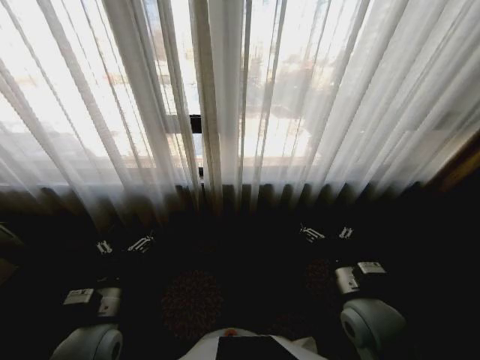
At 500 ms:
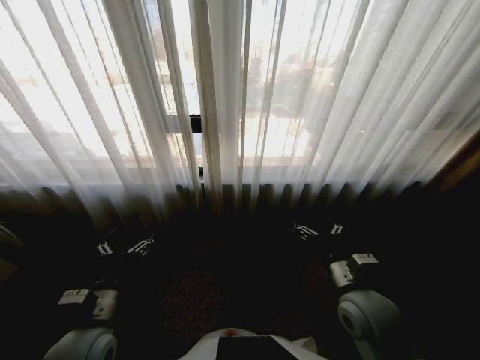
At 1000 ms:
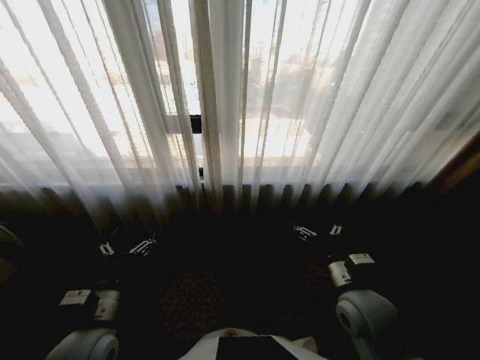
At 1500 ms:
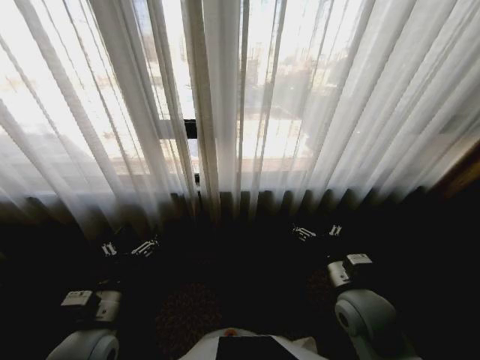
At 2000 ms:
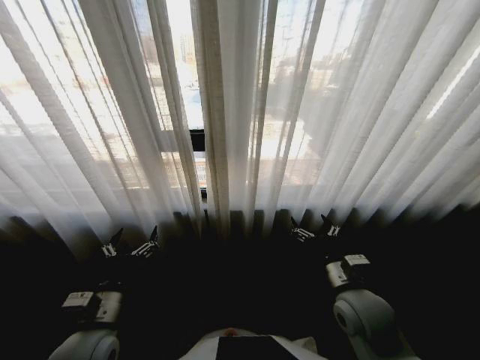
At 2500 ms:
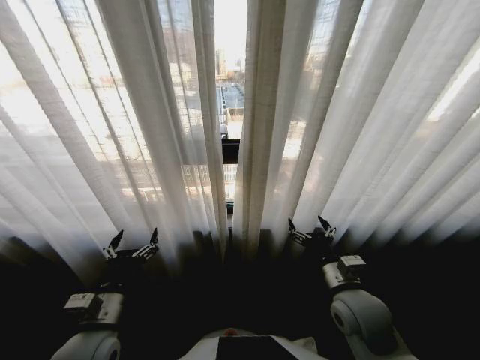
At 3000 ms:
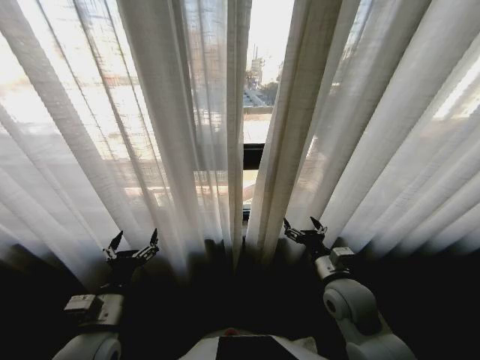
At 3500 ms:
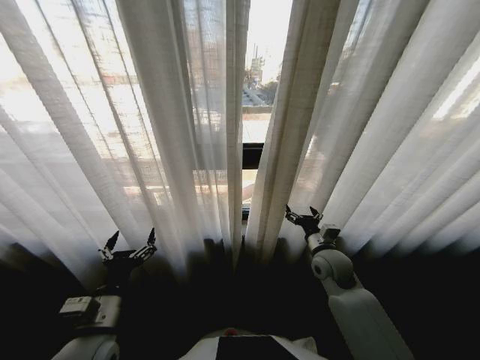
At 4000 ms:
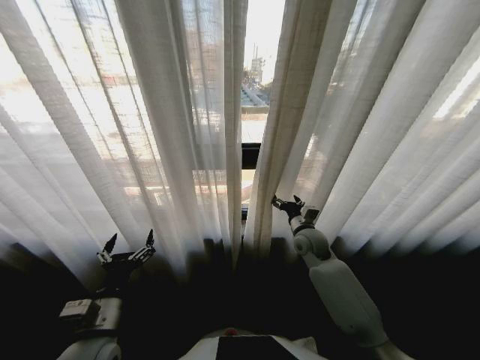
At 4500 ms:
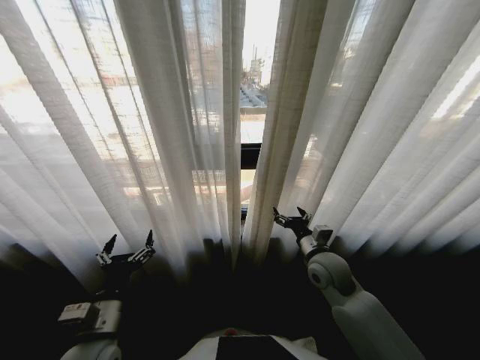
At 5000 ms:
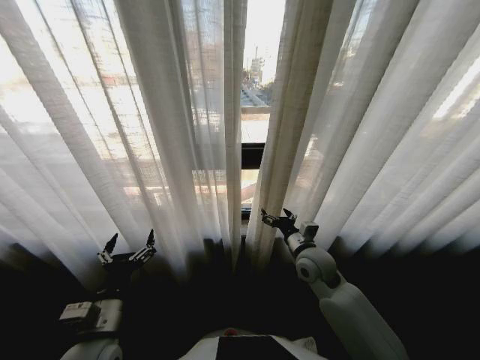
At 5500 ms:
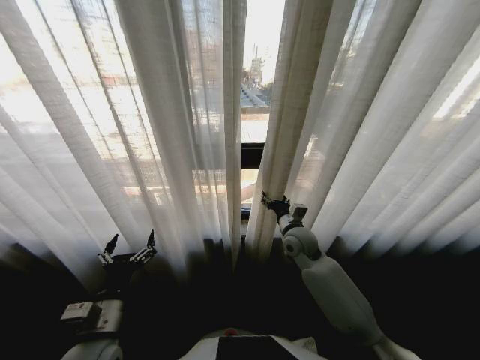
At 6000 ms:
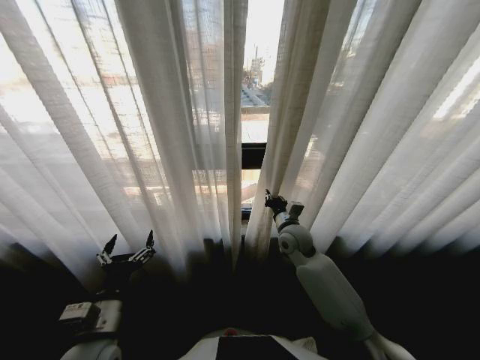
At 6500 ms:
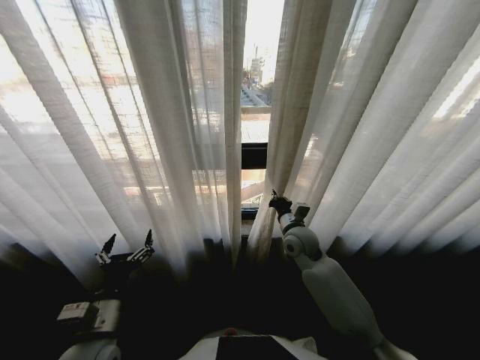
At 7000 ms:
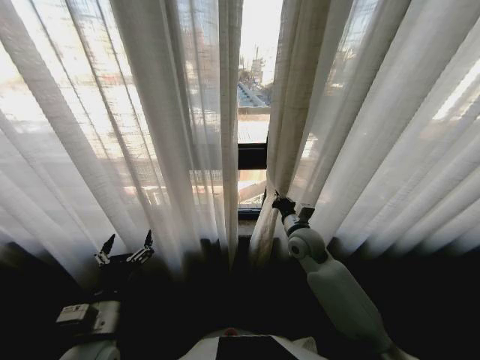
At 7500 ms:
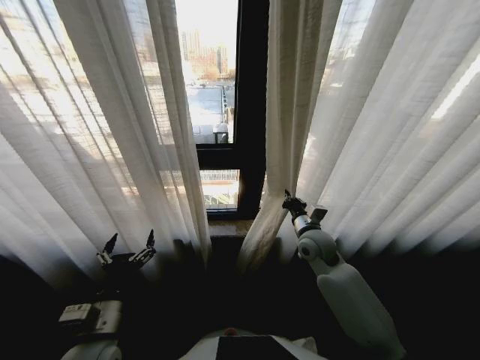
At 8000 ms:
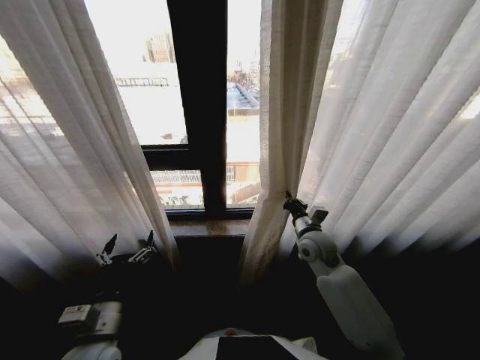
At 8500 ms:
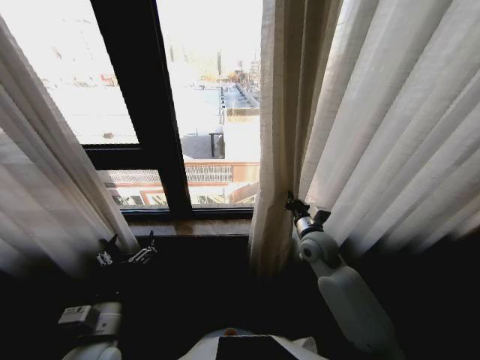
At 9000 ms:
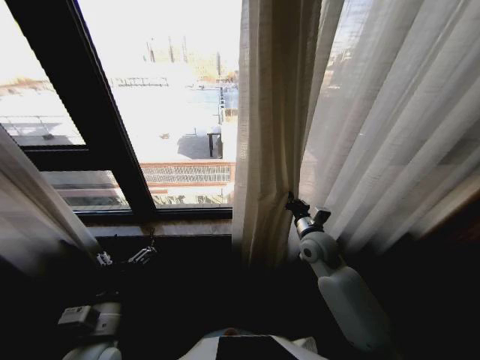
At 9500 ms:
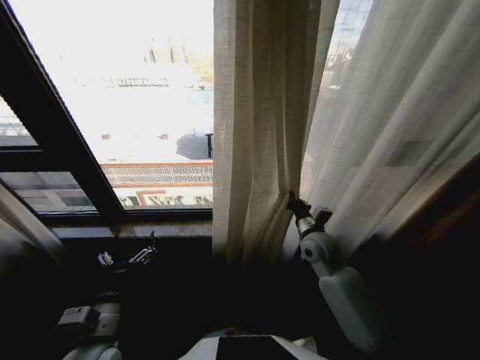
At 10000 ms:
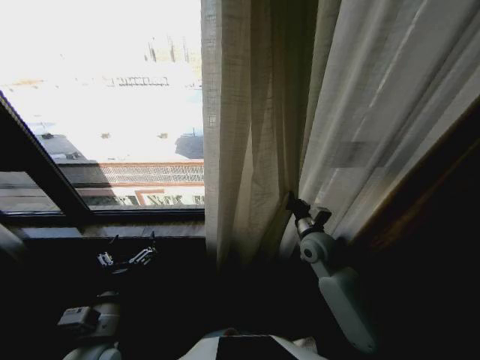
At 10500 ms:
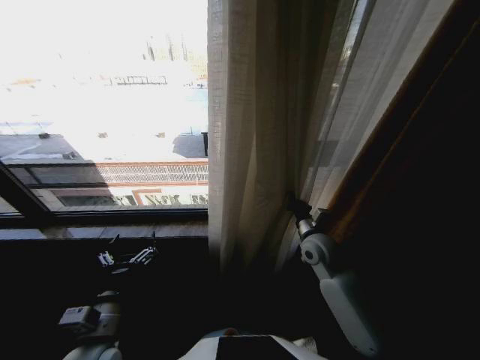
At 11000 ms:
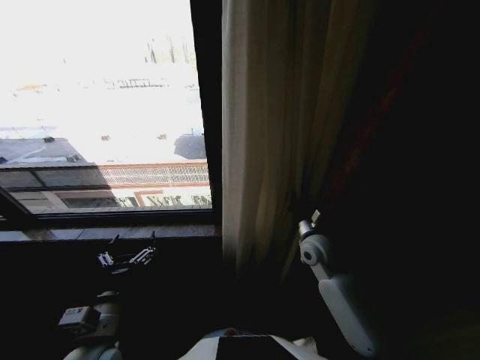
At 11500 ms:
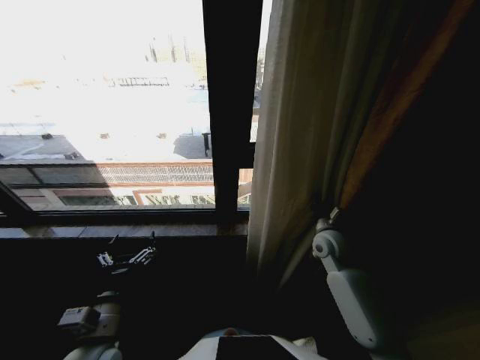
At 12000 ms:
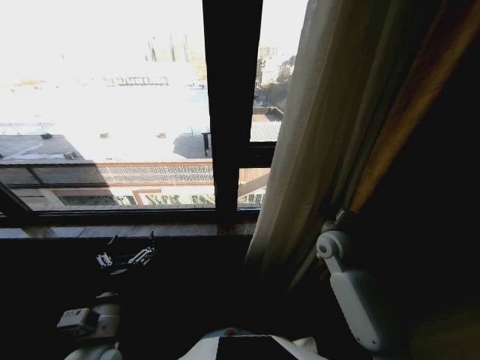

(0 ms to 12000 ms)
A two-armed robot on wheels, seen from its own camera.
Task of the whole recording: Open the curtains by pulling them apart, changing their state from closed to fully open.
2000 ms - 4000 ms: The right gripper heads forward, covering approximately 20 cm.
4000 ms - 6000 ms: The right gripper goes roughly 5 cm to the left, reaches about 10 cm backward, then returns, and closes its fingers.
6000 ms - 8000 ms: The right gripper moves approximately 5 cm.
10000 ms - 12000 ms: The right gripper is displaced to the right by approximately 5 cm.

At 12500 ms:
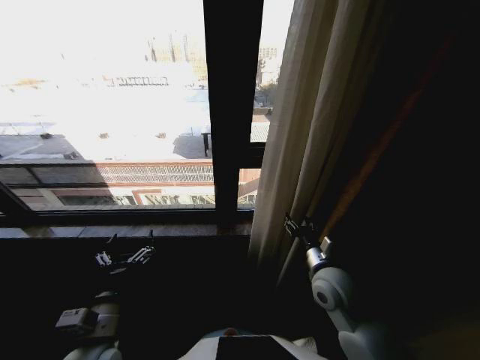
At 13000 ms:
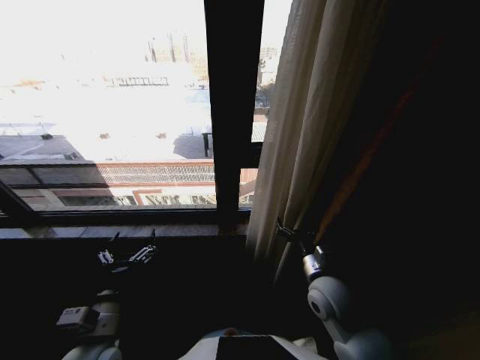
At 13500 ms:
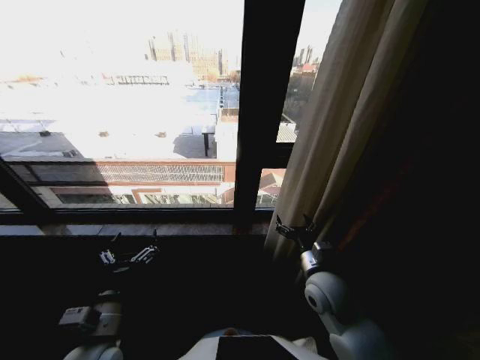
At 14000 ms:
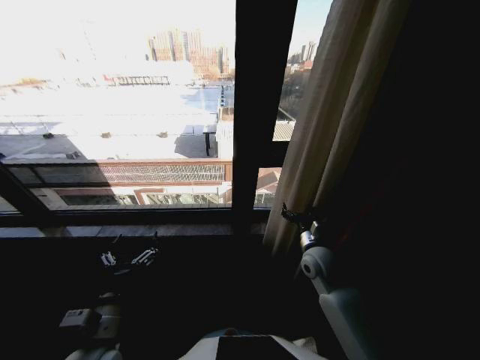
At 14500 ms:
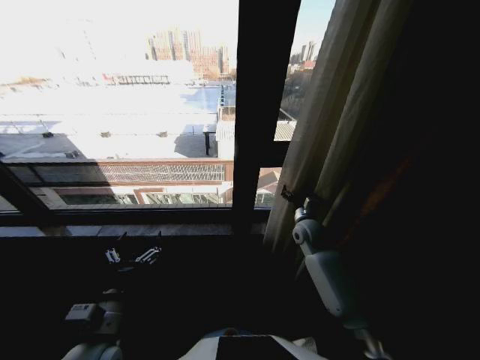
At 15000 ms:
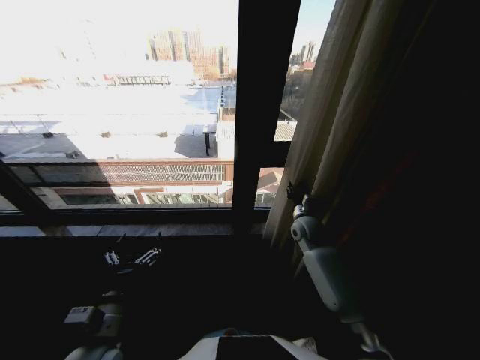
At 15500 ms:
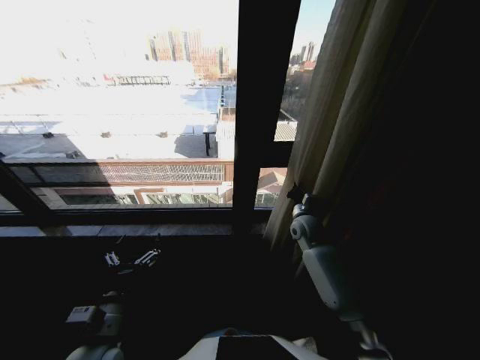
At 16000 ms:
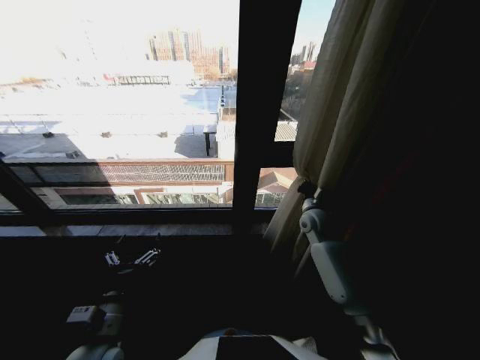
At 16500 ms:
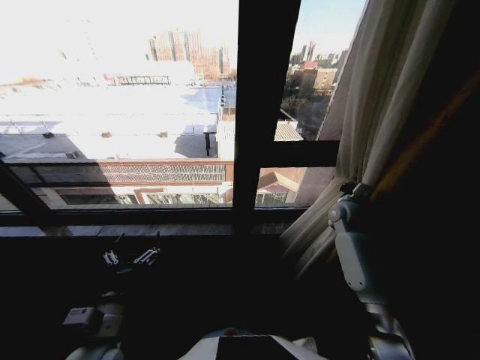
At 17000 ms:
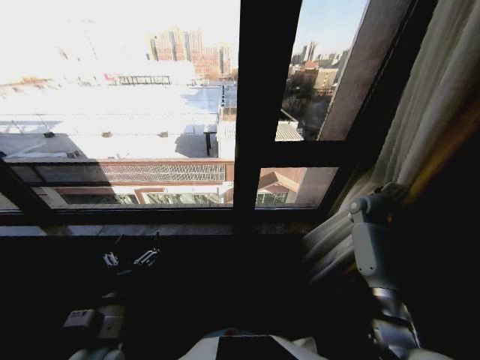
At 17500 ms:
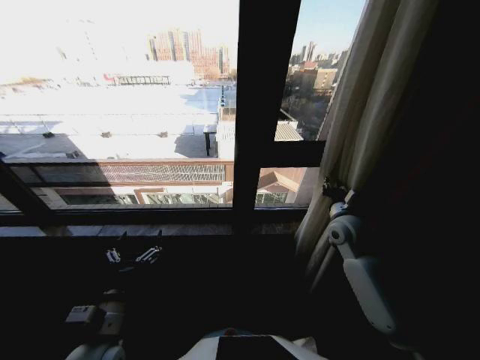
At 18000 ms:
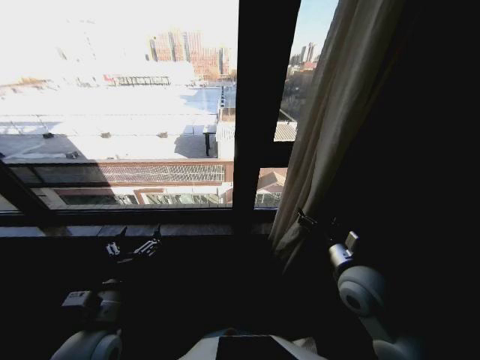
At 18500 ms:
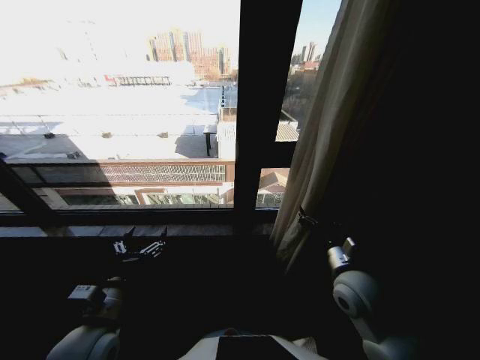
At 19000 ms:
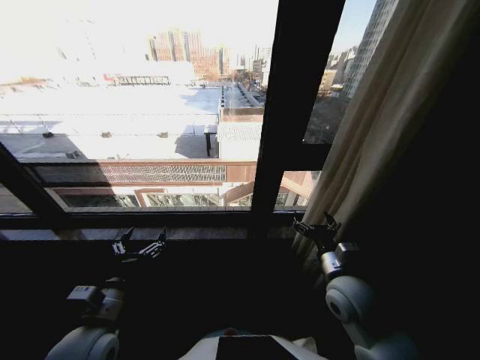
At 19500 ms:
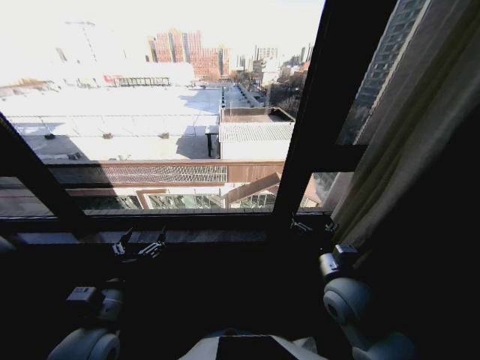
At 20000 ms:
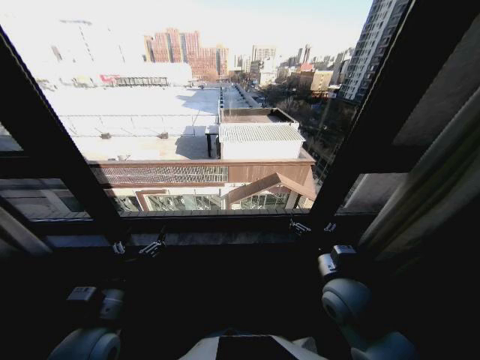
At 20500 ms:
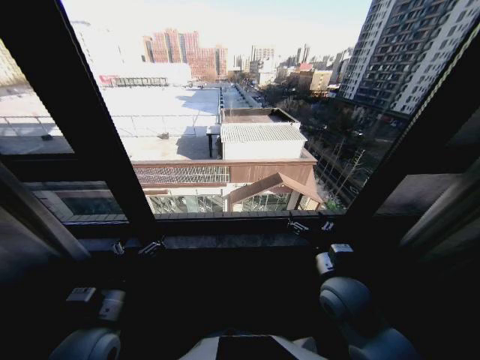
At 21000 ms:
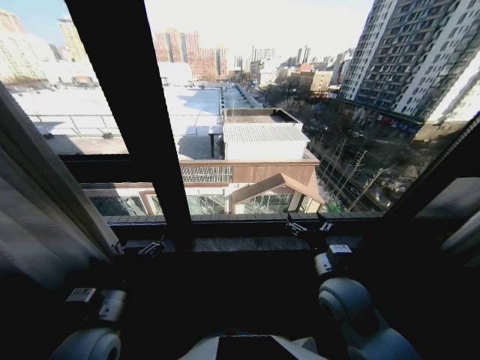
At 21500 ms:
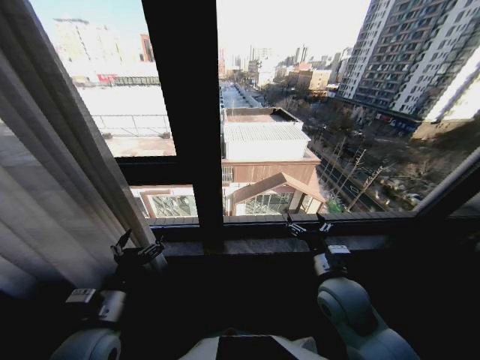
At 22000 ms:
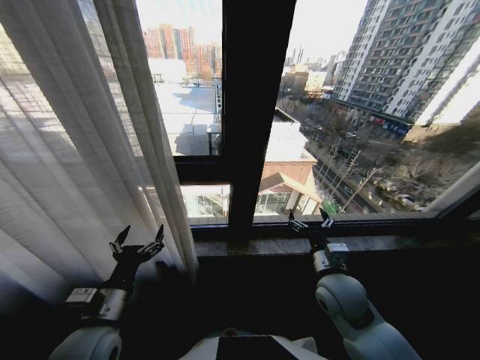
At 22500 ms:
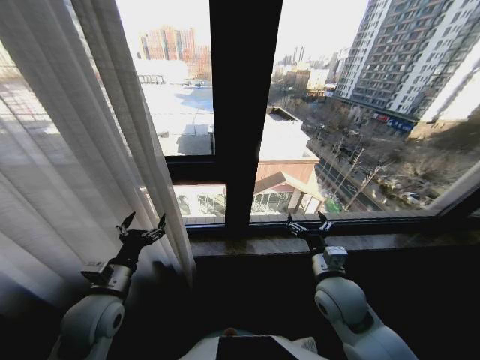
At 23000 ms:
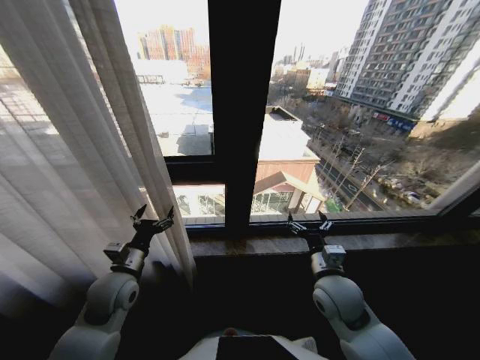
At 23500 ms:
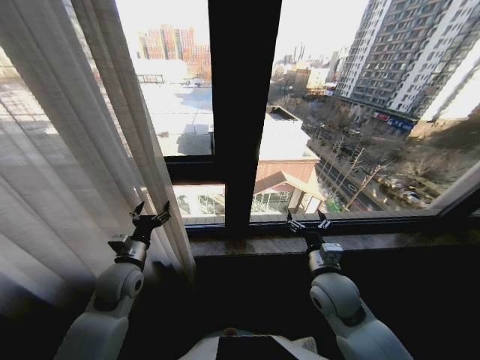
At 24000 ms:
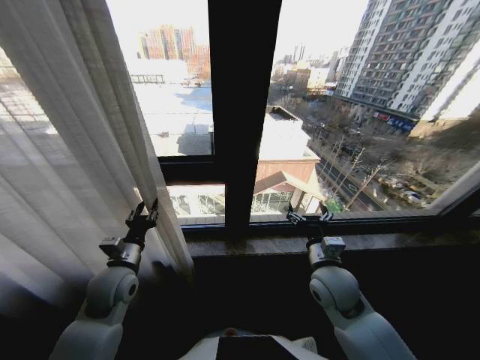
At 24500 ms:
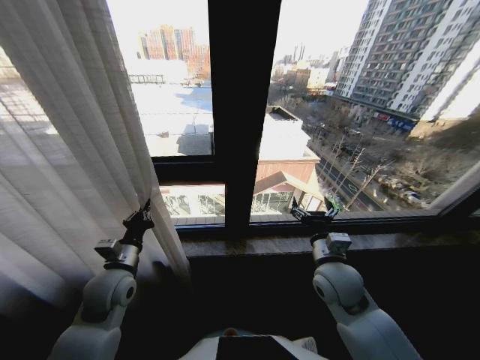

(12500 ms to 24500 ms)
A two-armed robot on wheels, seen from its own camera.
Task of the whole recording: Open the curtains by pulling them apart, changing their state from closed to fully open.
12500 ms - 14500 ms: The right gripper shifts roughly 15 cm forward, and opens up.
14500 ms - 16500 ms: The right gripper moves to the right, about 10 cm, and closes its fingers.
16500 ms - 18500 ms: The right gripper heads backward and to the left, covering roughly 25 cm, and opens its fingers.
20500 ms - 22500 ms: The left gripper is displaced forward by roughly 5 cm.
22500 ms - 24500 ms: The left gripper is displaced forward by about 5 cm, and closes up.

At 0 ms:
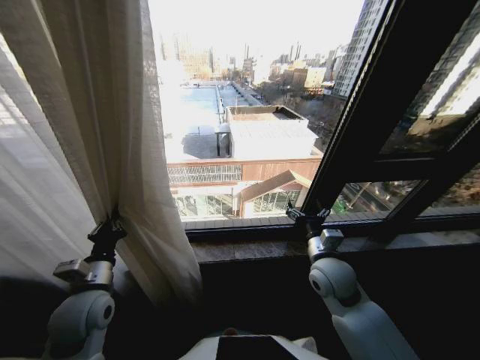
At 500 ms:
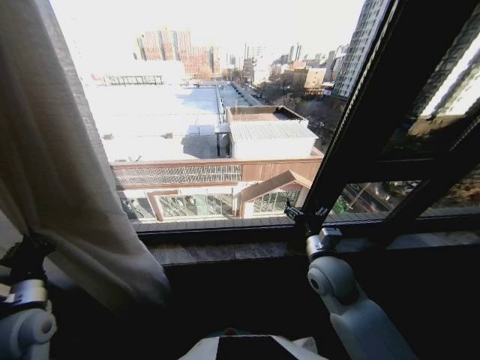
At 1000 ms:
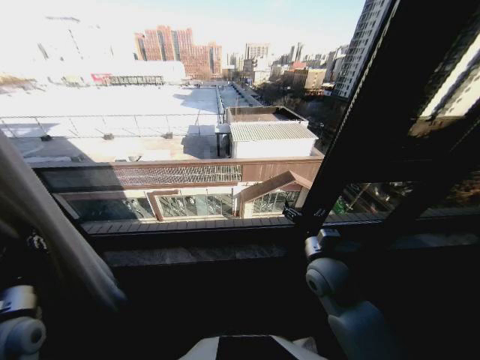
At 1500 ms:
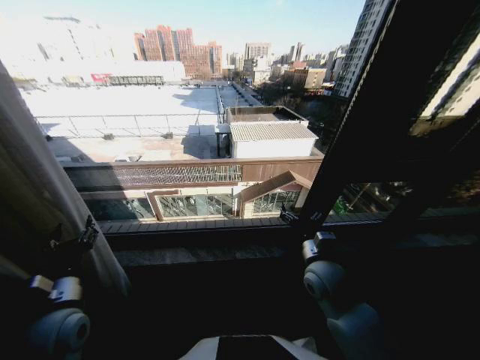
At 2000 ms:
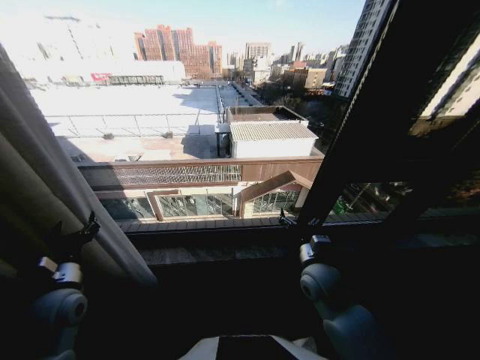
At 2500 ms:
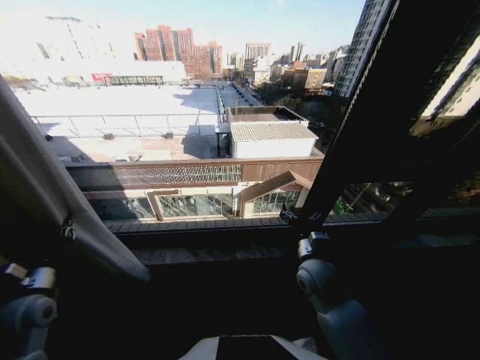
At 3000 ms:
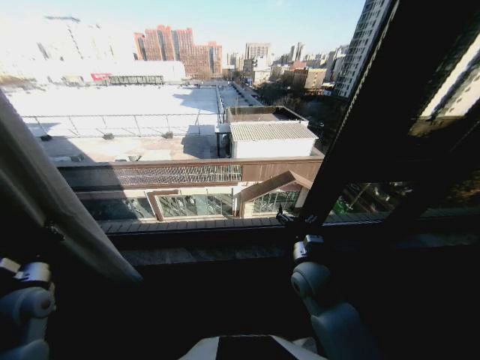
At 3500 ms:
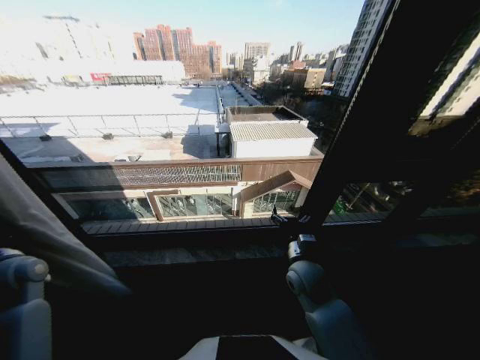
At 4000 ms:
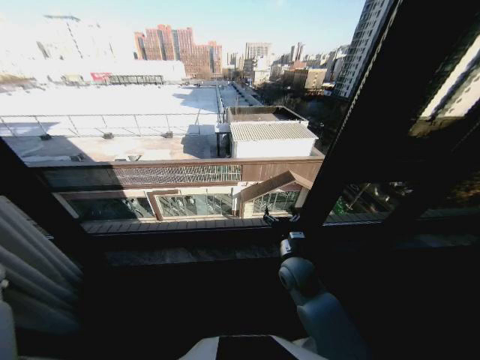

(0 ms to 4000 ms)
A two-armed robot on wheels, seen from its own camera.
Task of the whole recording: Open the curtains by pulling them apart, changing their state from closed to fully open.
0 ms - 2000 ms: The left gripper goes left and right, approximately 10 cm each way, reversing 2 times, and opens.
2000 ms - 4000 ms: The right gripper ends up about 5 cm from where it was; the left gripper goes about 20 cm to the left, and closes its fingers.
